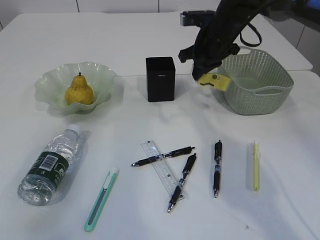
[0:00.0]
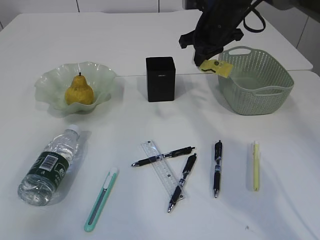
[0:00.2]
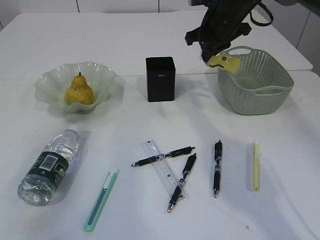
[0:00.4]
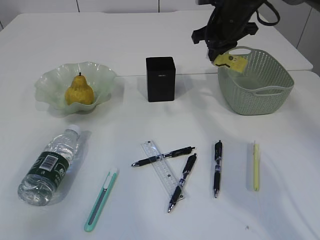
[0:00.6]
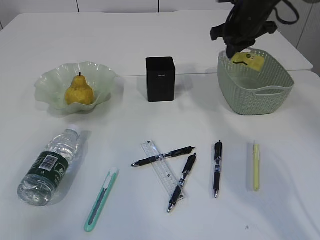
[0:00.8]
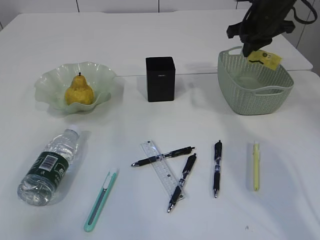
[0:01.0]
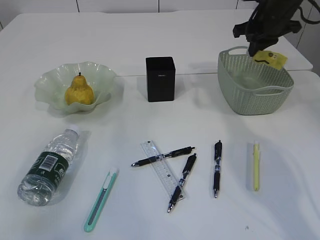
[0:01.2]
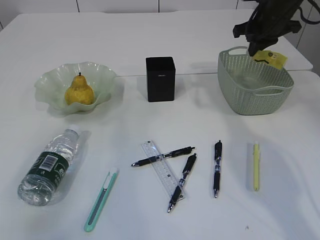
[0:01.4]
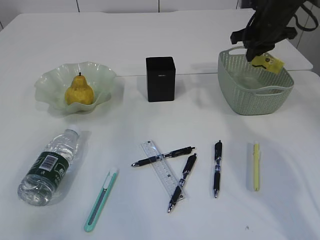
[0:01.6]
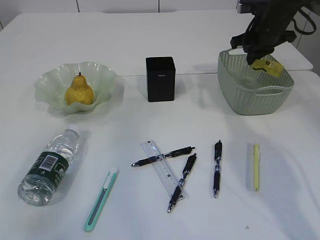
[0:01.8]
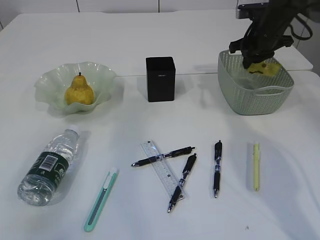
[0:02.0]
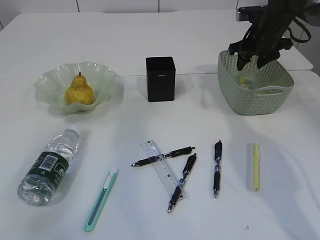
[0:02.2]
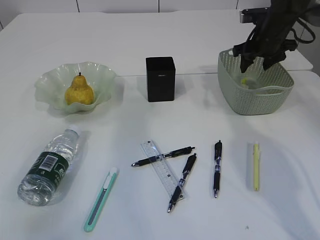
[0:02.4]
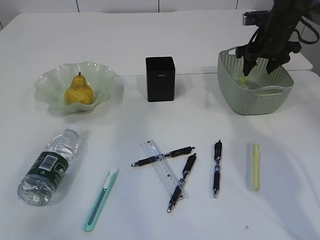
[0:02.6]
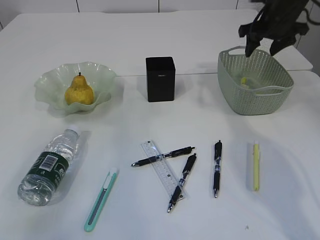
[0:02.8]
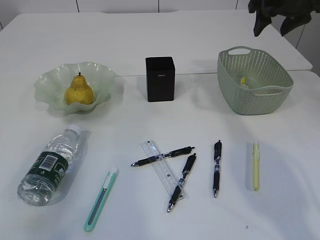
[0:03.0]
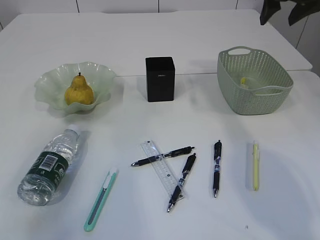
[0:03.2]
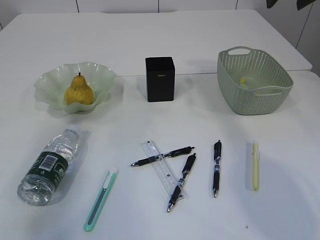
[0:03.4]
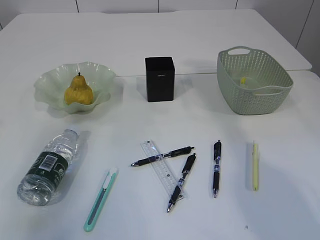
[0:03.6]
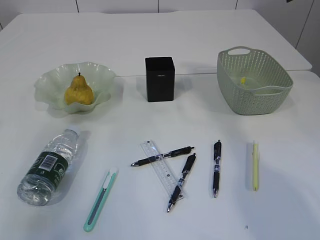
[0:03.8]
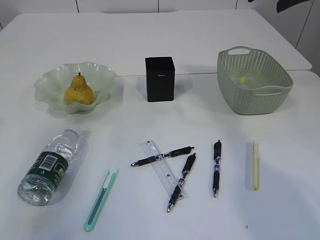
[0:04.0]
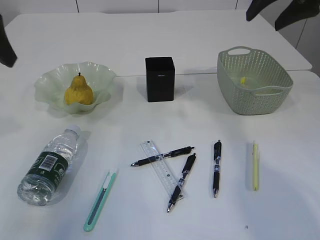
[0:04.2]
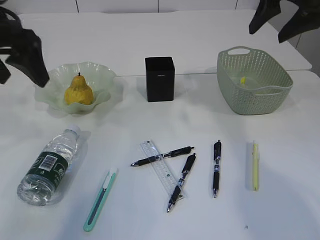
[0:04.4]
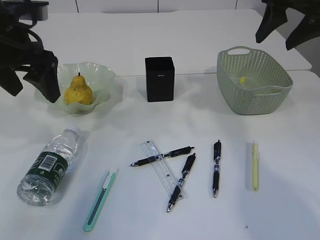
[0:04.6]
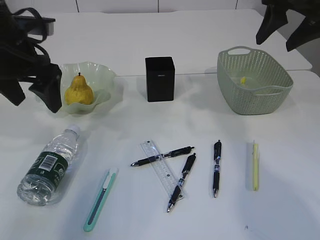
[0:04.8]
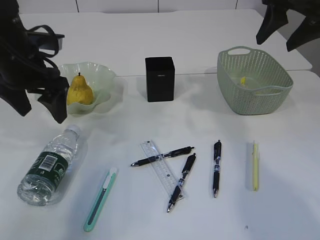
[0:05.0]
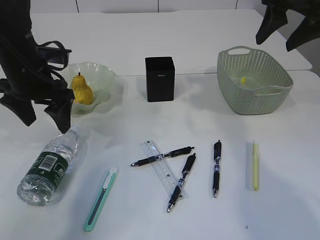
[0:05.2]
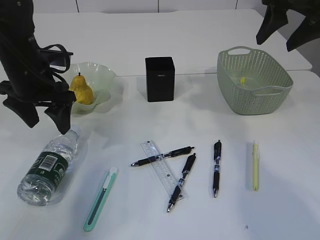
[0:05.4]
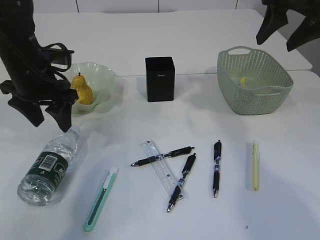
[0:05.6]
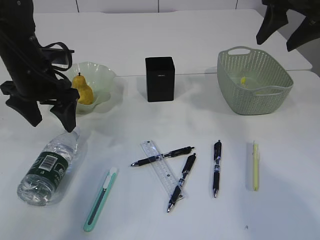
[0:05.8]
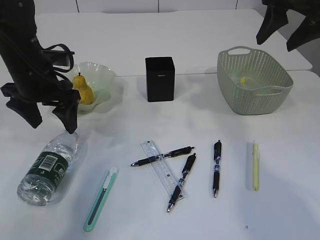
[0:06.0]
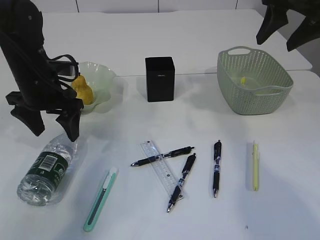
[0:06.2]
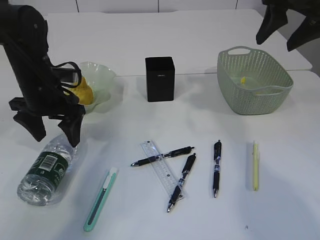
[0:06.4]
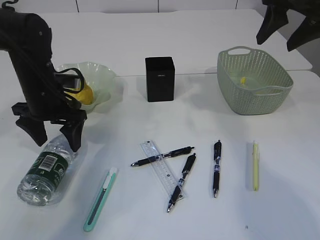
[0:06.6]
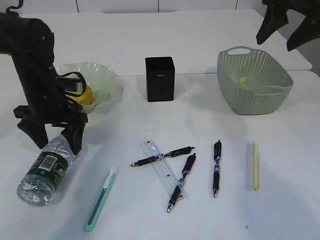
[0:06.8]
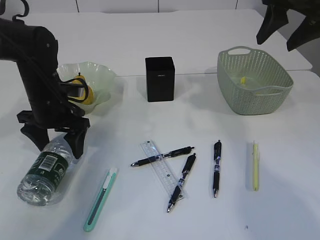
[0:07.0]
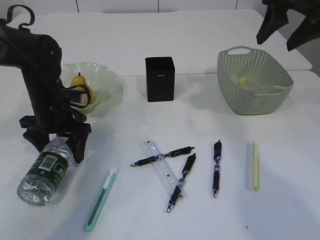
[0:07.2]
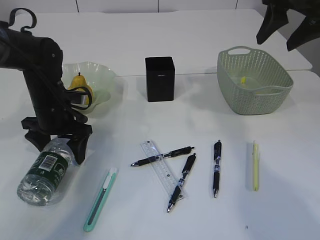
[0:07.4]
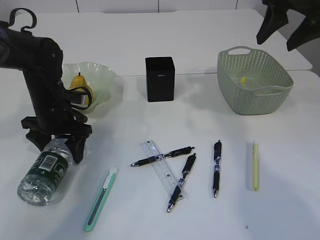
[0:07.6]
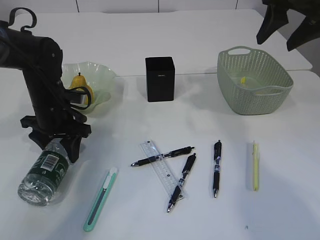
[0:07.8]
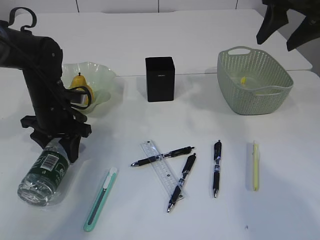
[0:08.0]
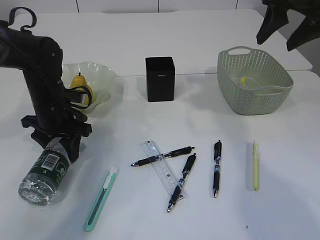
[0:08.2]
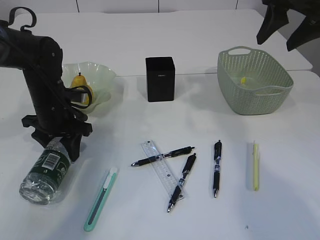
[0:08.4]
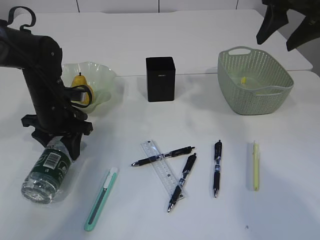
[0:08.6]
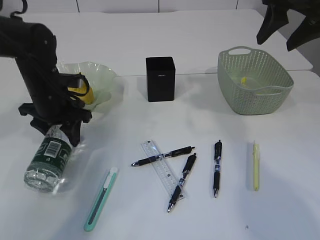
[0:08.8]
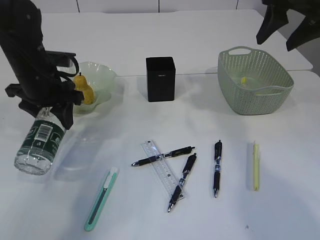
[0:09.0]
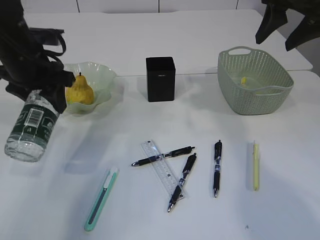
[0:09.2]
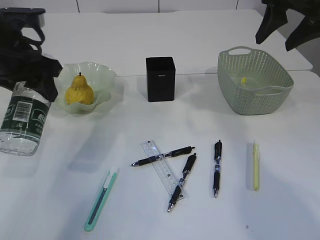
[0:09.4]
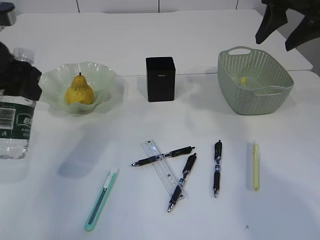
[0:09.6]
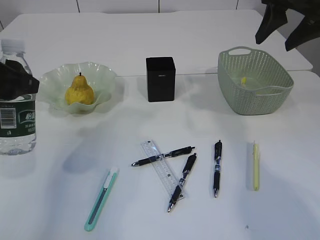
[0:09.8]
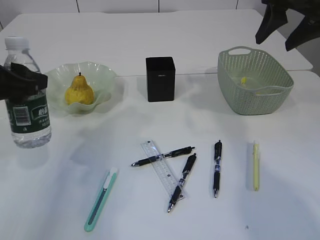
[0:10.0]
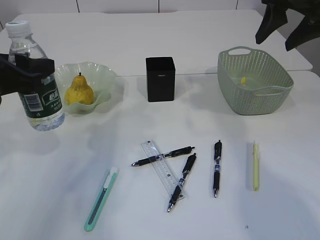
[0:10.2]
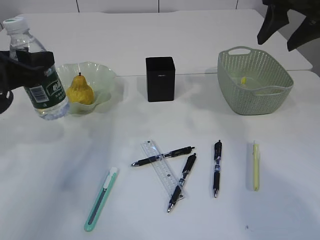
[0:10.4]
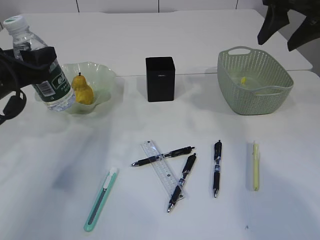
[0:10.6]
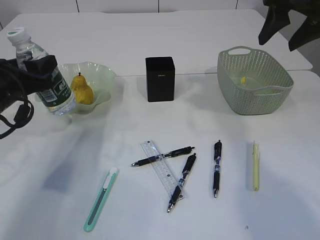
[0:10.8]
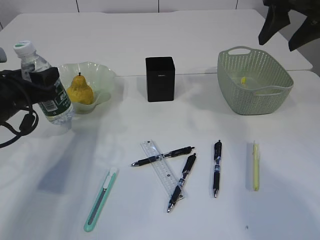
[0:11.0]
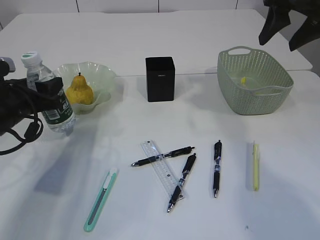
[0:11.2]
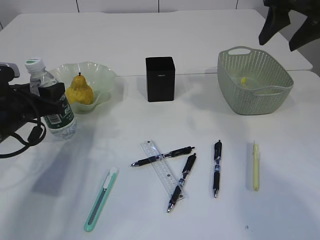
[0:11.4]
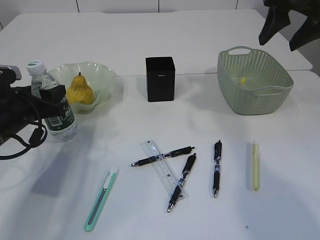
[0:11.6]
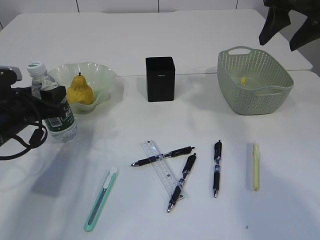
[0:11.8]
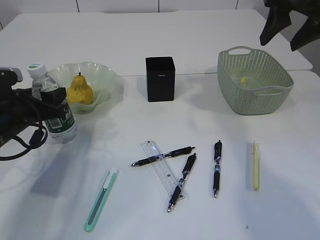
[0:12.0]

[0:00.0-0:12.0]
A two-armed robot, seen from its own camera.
Step, 0:00.0 to 0:03.0: Place the plastic in the basket.
Step, 0:03.2 to 0:08.8: Pick up the bottle with the left arm.
0:00.0 to 0:01.6: The right gripper goes about 10 cm to the right.
0:01.6 to 0:03.0: The right gripper is displaced upward by about 5 cm, and opens.
0:03.0 to 0:04.4: The right gripper heads backward, covering some 10 cm. Meanwhile the left gripper moves to the right, roughly 10 cm.
0:04.4 to 0:06.0: The left gripper is displaced downward by some 10 cm.
0:06.0 to 0:07.6: The left gripper moves downward, roughly 10 cm.
0:07.6 to 0:09.0: The left gripper moves upward, approximately 5 cm, and closes up.
0:09.0 to 0:10.4: The left gripper goes approximately 10 cm backward.
0:10.4 to 0:12.0: The left gripper goes some 10 cm downward.

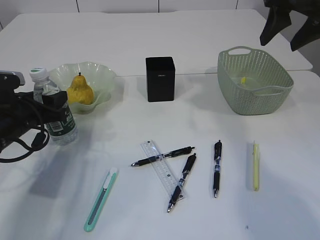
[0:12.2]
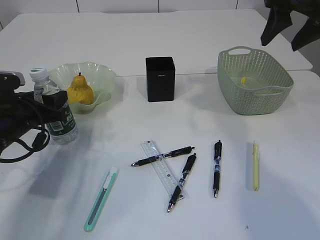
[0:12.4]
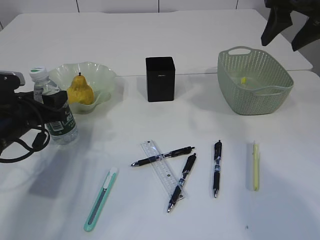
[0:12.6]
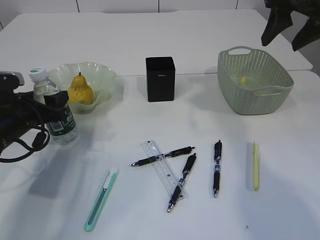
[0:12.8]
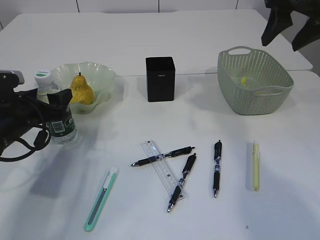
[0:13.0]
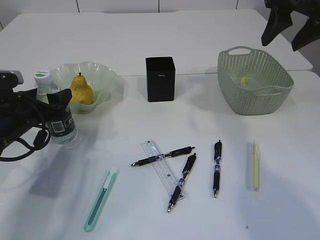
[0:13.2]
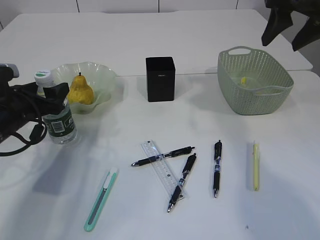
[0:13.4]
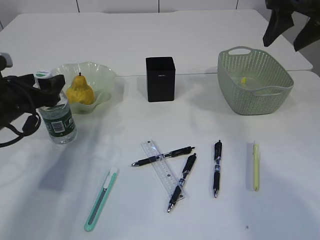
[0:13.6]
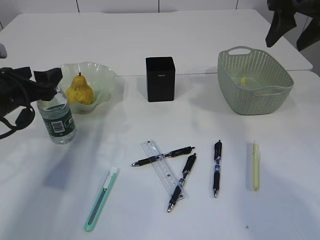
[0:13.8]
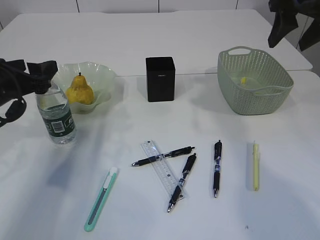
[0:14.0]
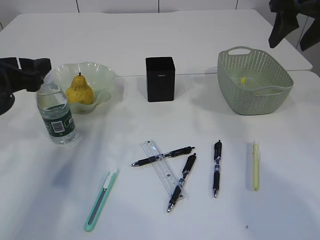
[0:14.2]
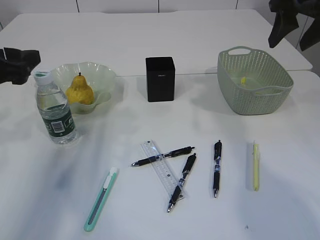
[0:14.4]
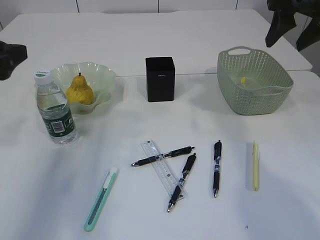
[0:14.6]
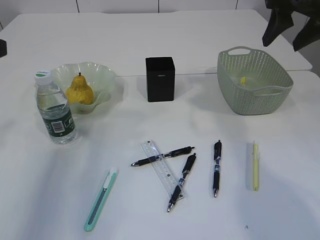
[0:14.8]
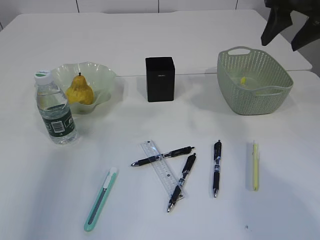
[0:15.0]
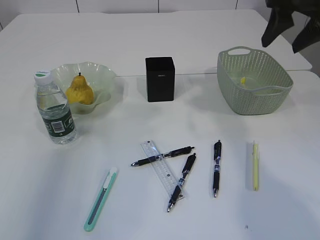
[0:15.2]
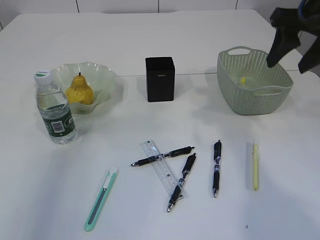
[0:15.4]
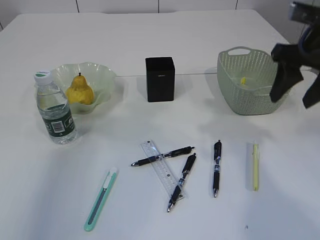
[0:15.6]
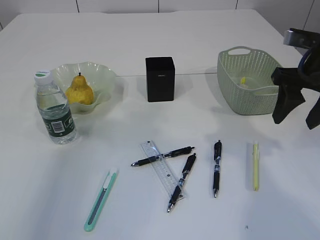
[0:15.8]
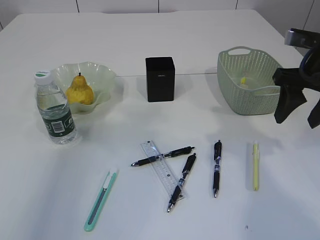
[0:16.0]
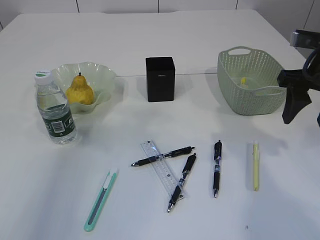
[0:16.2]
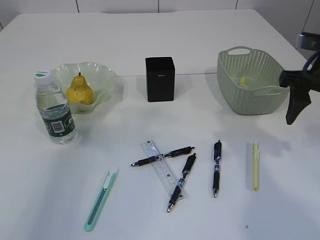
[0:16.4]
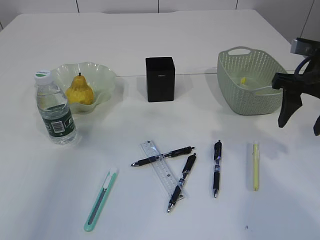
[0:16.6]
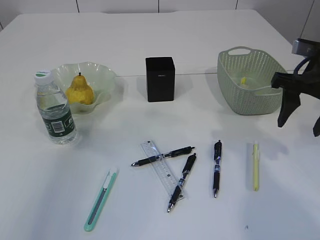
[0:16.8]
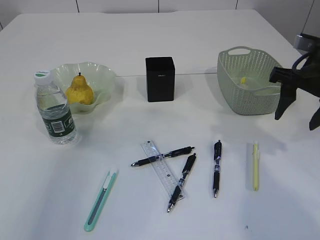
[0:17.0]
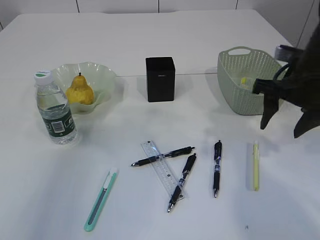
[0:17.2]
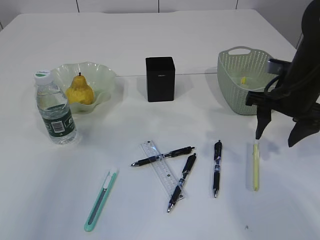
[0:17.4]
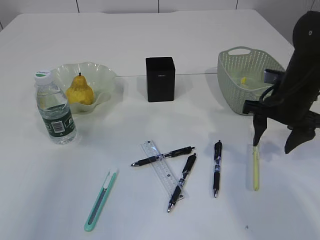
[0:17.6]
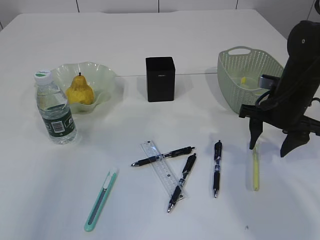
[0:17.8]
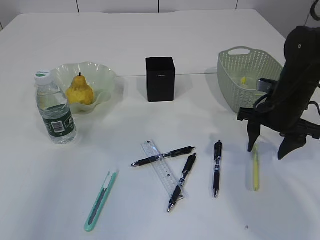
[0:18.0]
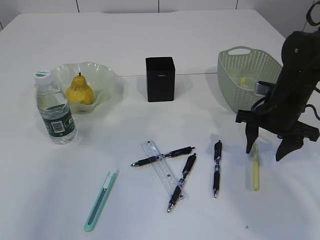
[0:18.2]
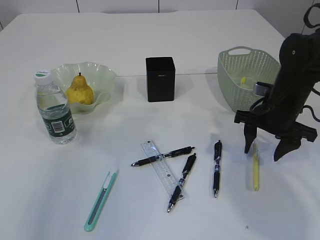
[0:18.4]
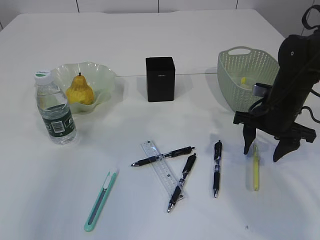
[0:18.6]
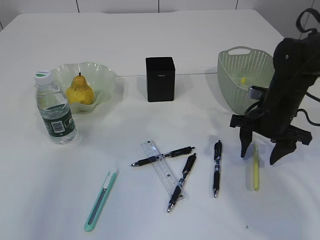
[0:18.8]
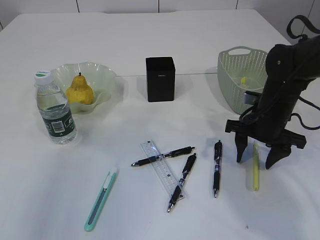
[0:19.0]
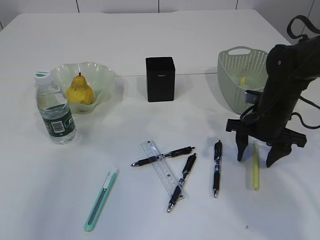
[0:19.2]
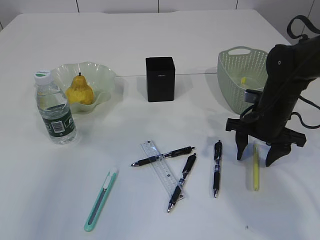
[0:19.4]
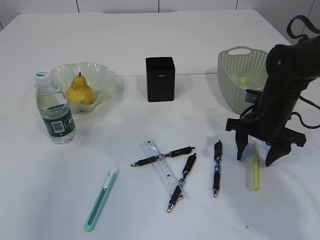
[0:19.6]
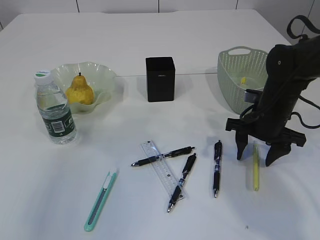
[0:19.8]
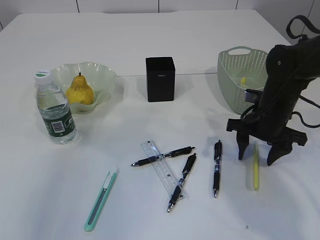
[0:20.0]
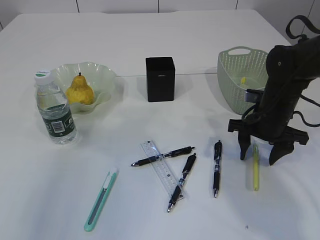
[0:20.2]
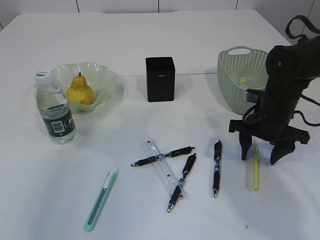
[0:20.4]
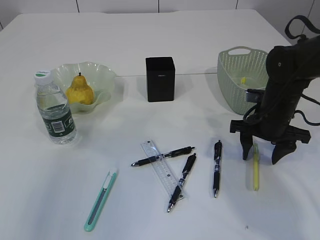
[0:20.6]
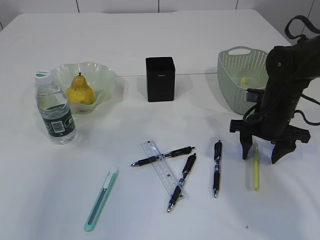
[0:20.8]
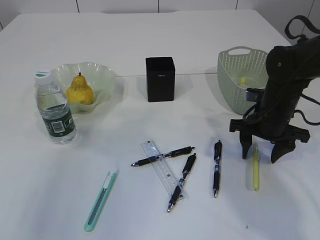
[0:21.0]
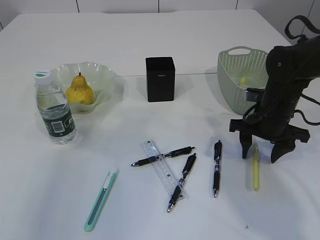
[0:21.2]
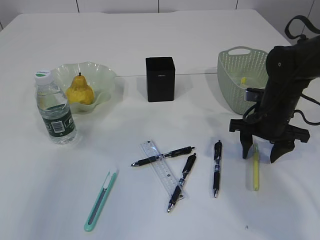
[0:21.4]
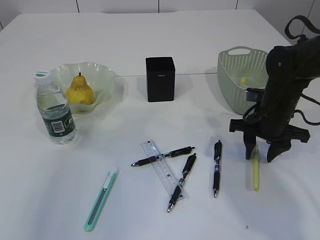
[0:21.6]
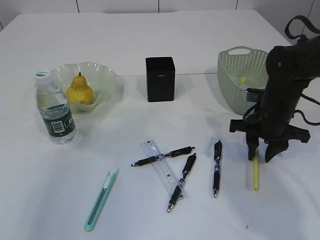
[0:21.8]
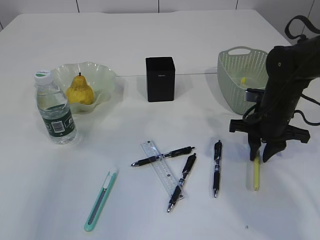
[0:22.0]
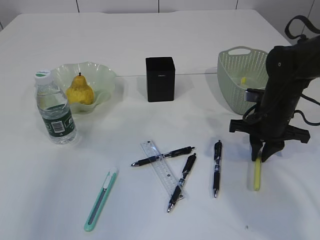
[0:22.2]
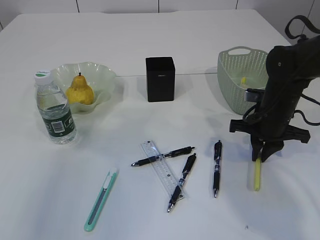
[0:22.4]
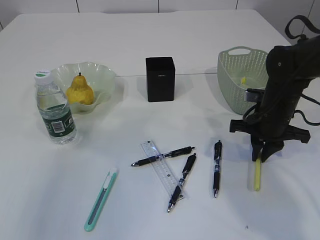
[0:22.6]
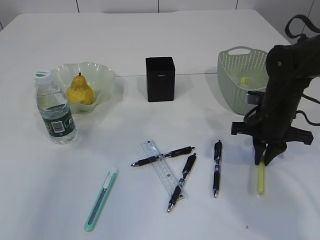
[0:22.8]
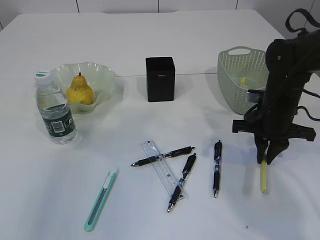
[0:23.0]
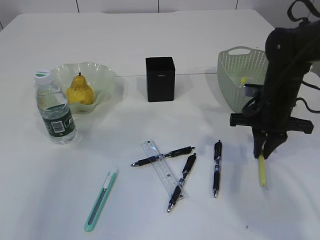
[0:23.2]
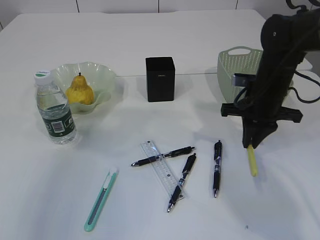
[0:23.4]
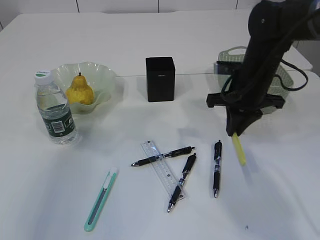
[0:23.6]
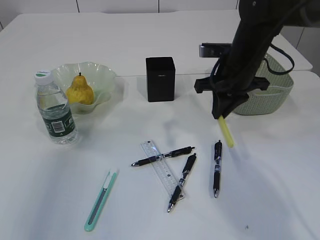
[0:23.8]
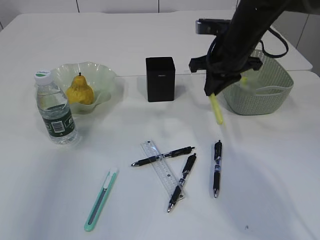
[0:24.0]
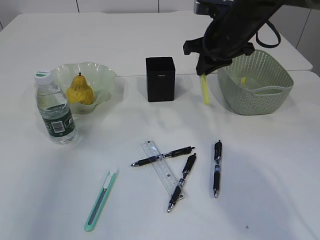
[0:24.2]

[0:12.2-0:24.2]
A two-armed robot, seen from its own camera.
Step, 0:12.2 to 0:14.4: Place the bottle.
Step, 0:14.6 to 0:23.4: pick up the yellow knife.
0:12.2 to 0:13.8: The left gripper heads upward, covering approximately 5 cm, and opens.
0:13.8 to 0:15.2: The left gripper heads upward and backward, covering roughly 25 cm.
0:15.2 to 0:16.6: The right gripper travels downward and backward by roughly 10 cm.
0:16.6 to 0:18.2: The right gripper heads downward, covering about 10 cm.
0:18.2 to 0:21.2: There are only small adjustments of the grippers.
0:21.2 to 0:22.6: The right gripper closes up.
0:22.6 to 0:24.2: The right gripper heads upward, to the left and forward, covering approximately 15 cm.
